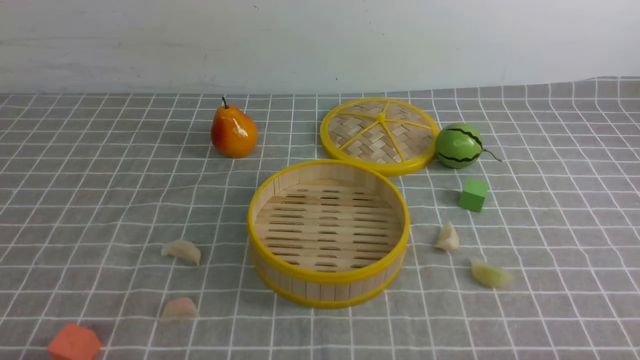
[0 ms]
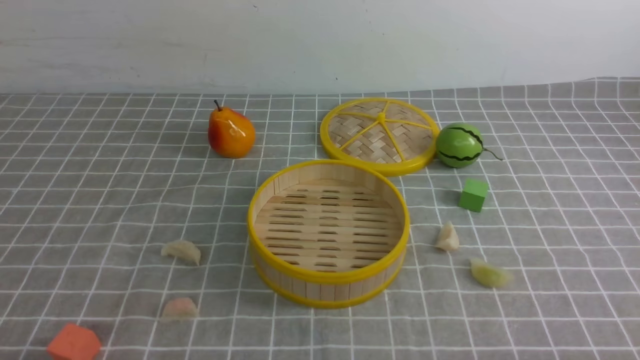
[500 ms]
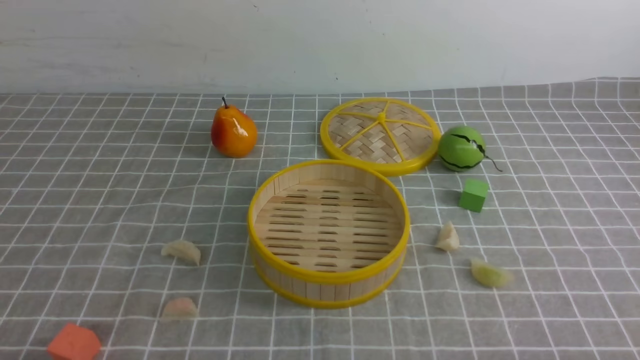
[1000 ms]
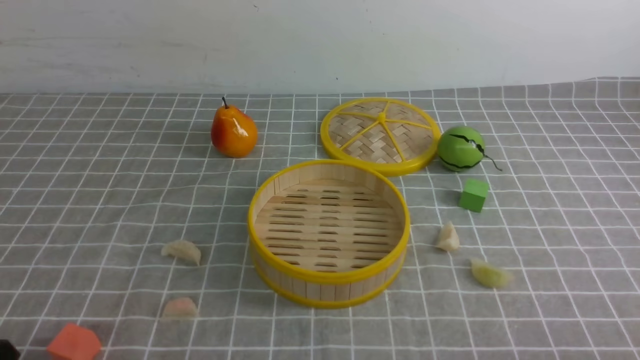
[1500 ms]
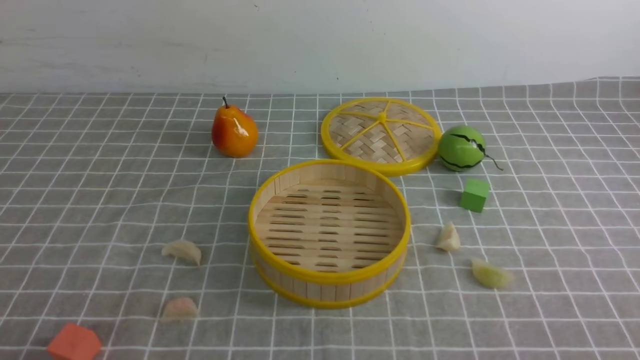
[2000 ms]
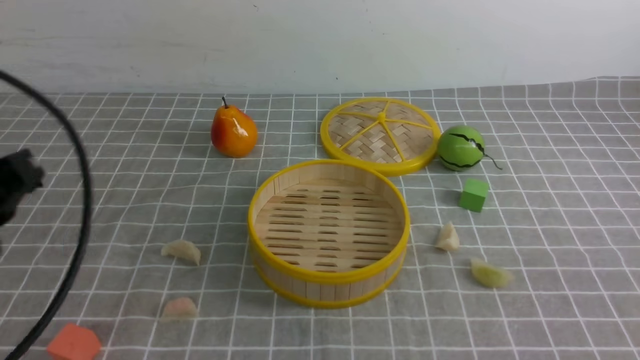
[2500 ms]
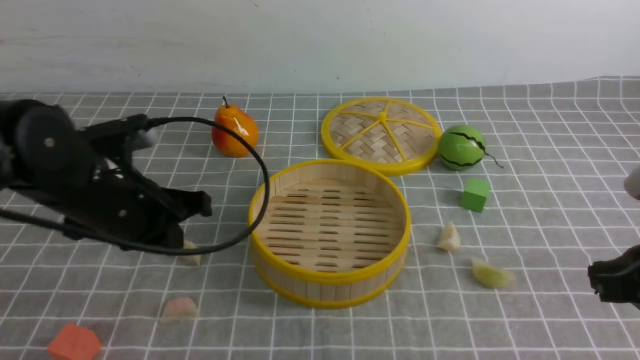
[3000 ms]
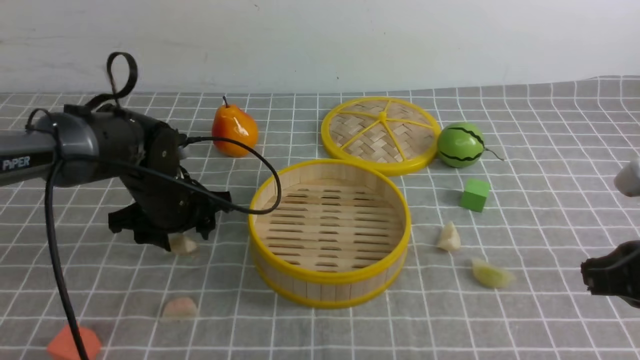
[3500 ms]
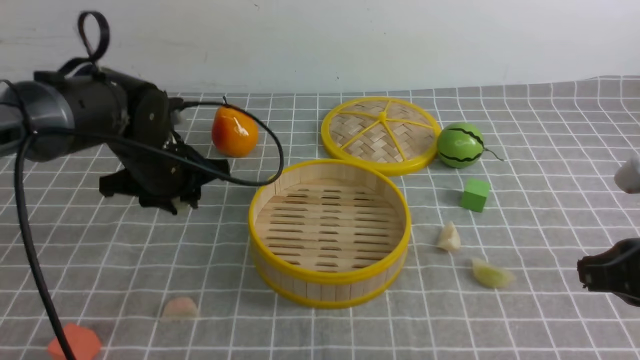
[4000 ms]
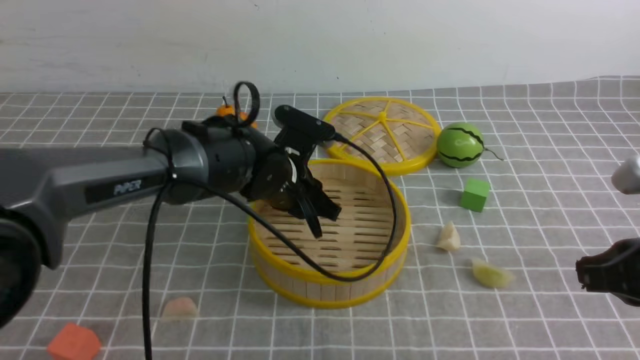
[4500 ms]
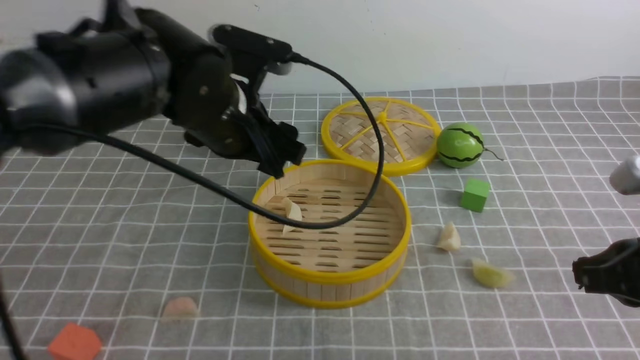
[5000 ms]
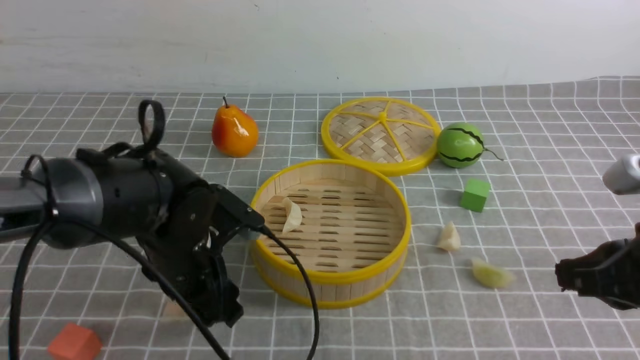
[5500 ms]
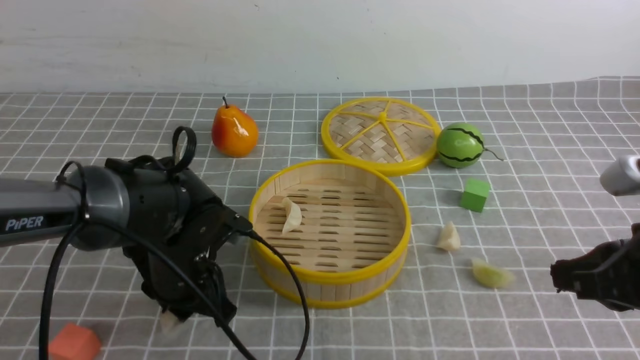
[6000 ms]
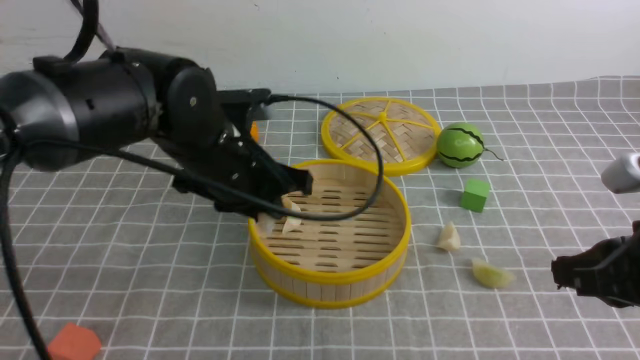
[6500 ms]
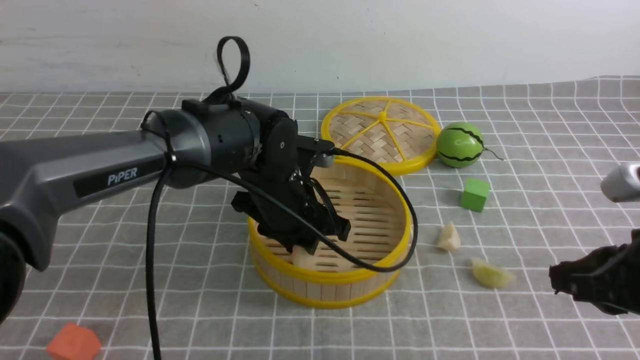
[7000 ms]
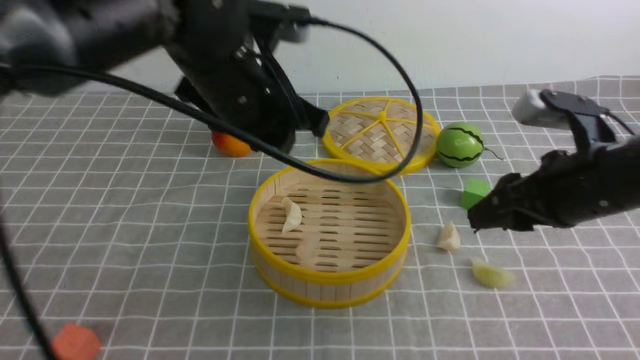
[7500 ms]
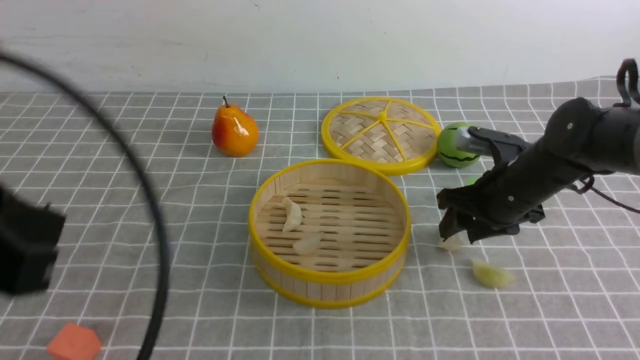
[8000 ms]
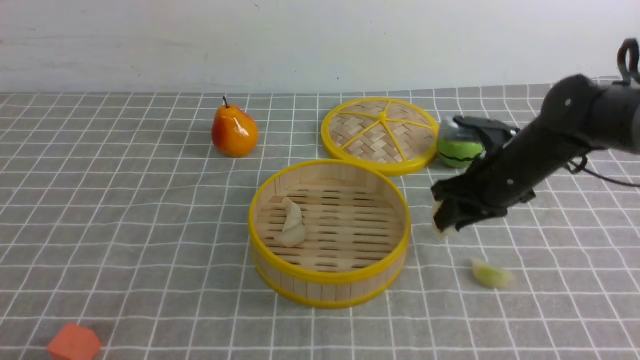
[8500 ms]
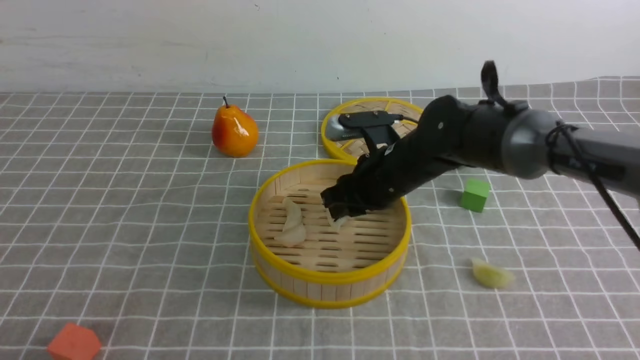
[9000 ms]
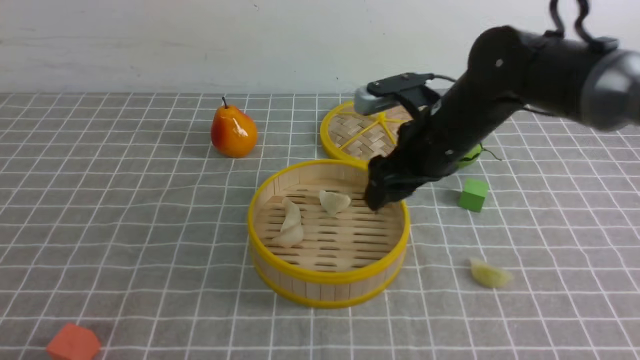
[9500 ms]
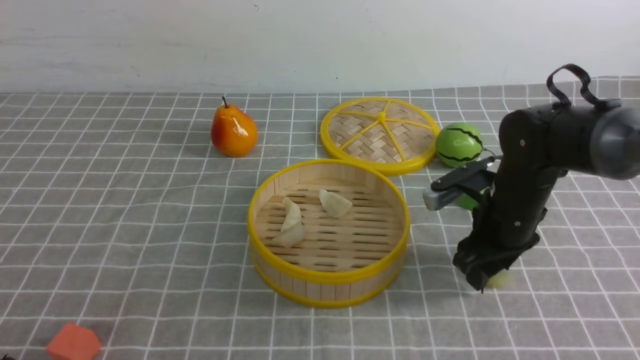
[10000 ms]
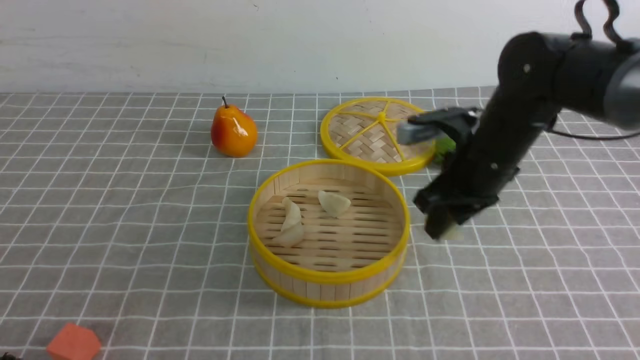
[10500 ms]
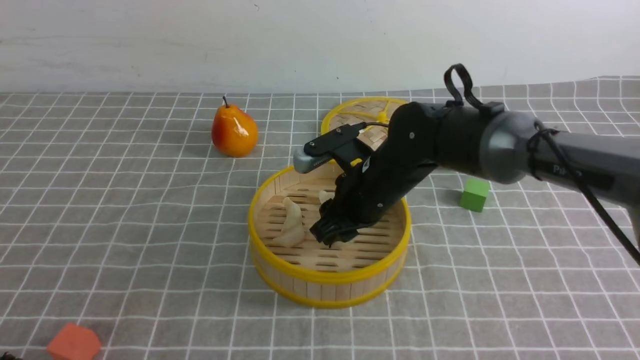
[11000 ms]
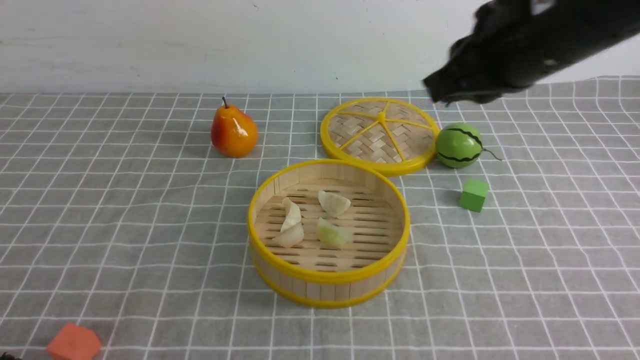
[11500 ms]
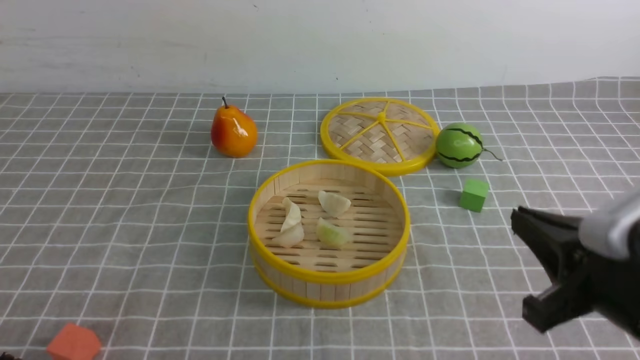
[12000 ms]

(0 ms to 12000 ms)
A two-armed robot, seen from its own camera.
Task of the whole recording: put the dumplings into the steamer on the table with the grey tablecloth.
Step, 0 ms - 3500 ms: use the left arm to grab a dumpling.
Step, 4000 ms - 4500 ms: use the left arm to put the dumpling into the steamer.
Step, 5000 ms - 6000 ms: use the left arm to grab a dumpling.
Step, 6500 ms - 7000 ms: use the left arm to put the dumpling into the steamer.
Step, 9500 ms - 10000 ms: use the right arm to grab a dumpling.
Step, 10500 ms - 11000 ms: use the right arm to put the dumpling into the steamer.
2000 ms - 4000 ms: The right gripper shifts roughly 15 cm forward. Meanwhile the left gripper shifts about 35 cm forward.
4000 ms - 6000 ms: The left gripper moves backward and downward, about 10 cm, moves roughly 10 cm to the right and comes back, and opens and closes again.
6000 ms - 8000 ms: The left gripper moves upward and backward, about 30 cm, and closes. Meanwhile the right gripper shifts approximately 20 cm forward and downward, and opens its fingers.
8000 ms - 10000 ms: The left gripper travels downward and backward by approximately 15 cm. Meanwhile the right gripper reaches about 15 cm to the left, then returns.
10000 ms - 12000 ms: The right gripper moves backward, approximately 20 cm, and closes up.

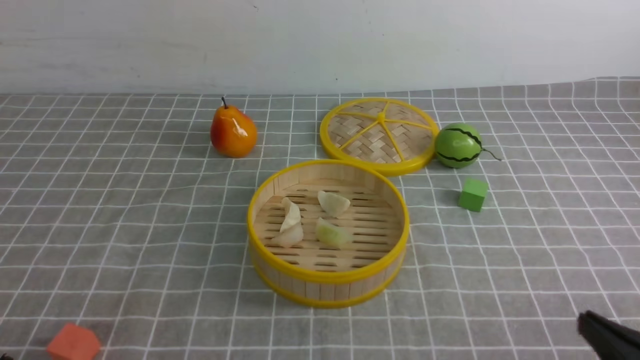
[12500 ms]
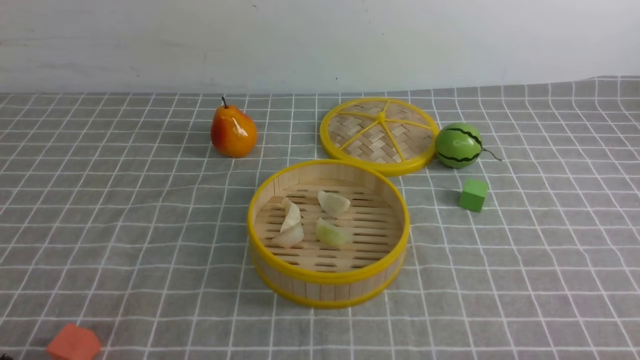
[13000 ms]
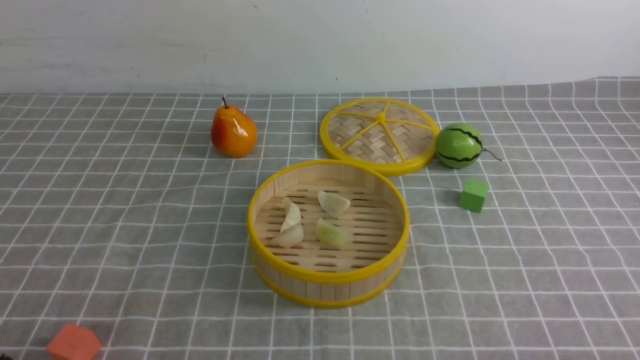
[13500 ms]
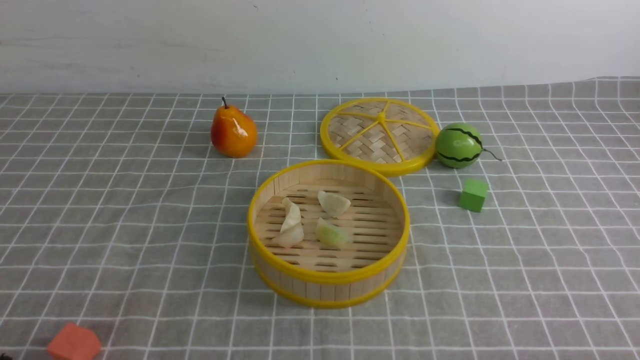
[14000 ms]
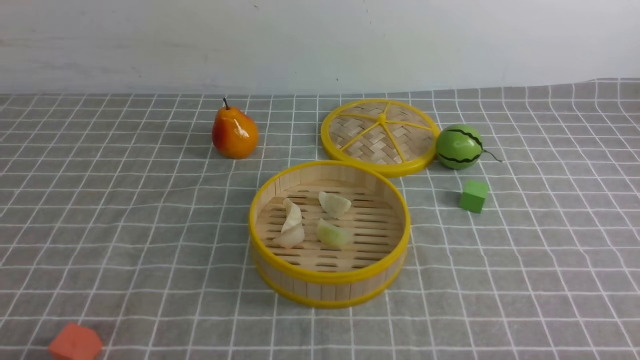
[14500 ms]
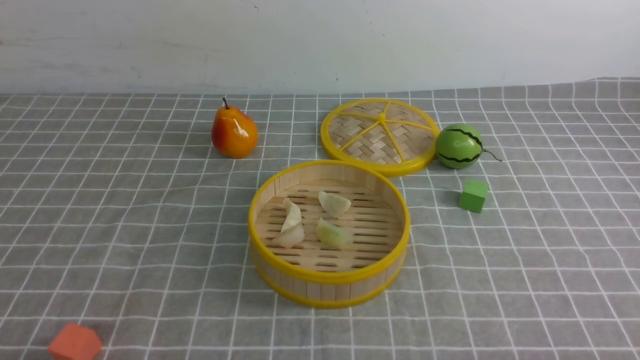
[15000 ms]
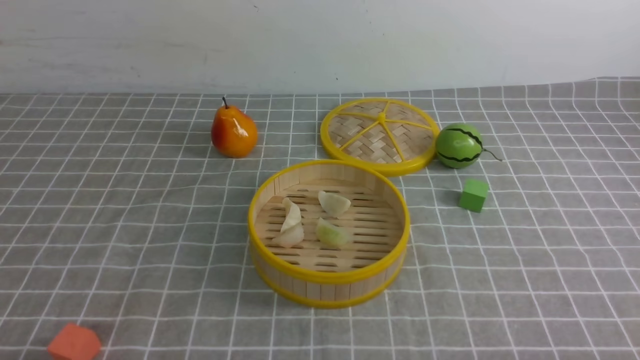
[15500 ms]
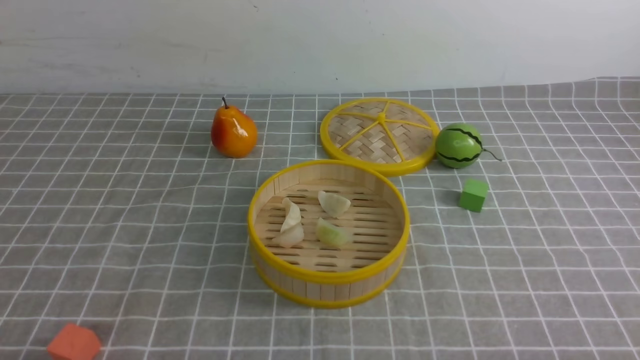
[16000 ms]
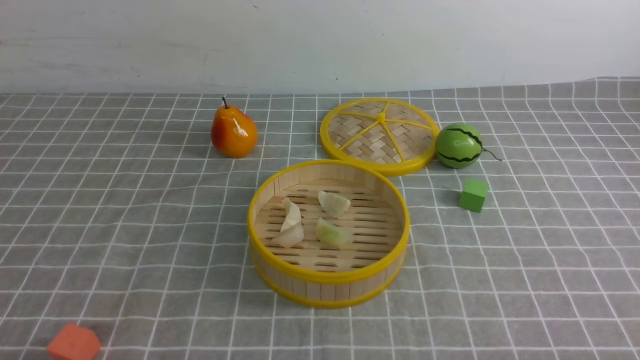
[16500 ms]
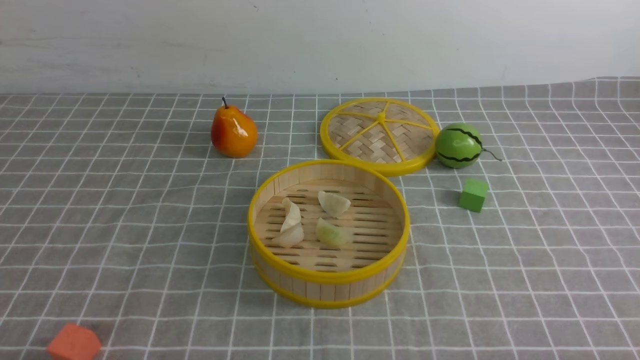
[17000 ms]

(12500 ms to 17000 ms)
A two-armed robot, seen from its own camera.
Task of the whole recording: put the dumplings into the steamer on the table with the grey tablecloth.
12500 ms - 14500 ms: The right gripper ends up about 5 cm from where it was.
